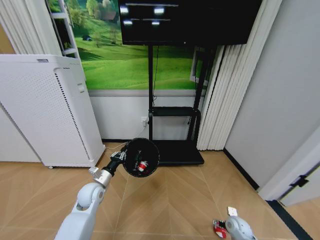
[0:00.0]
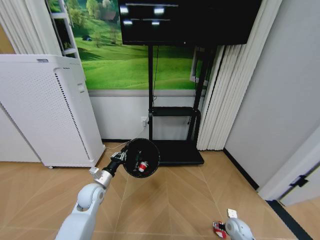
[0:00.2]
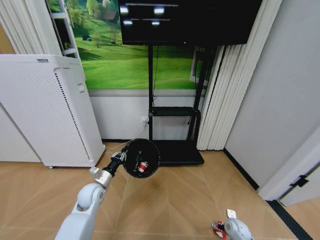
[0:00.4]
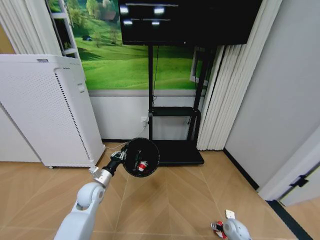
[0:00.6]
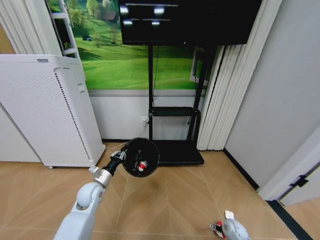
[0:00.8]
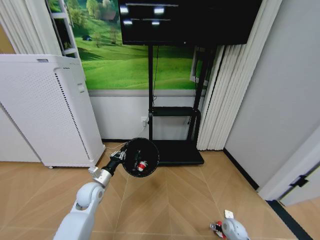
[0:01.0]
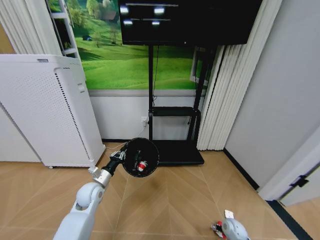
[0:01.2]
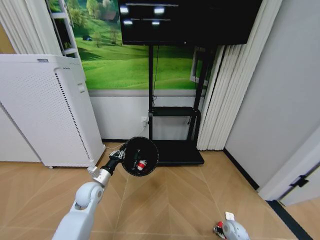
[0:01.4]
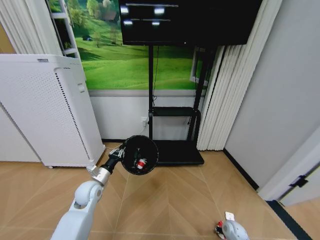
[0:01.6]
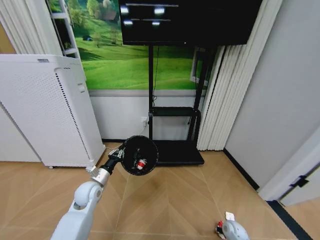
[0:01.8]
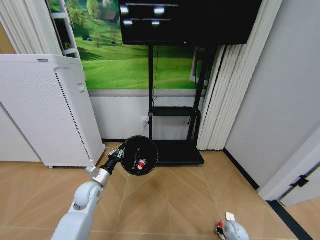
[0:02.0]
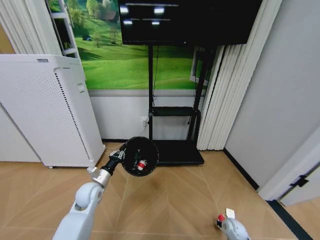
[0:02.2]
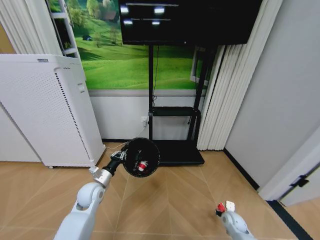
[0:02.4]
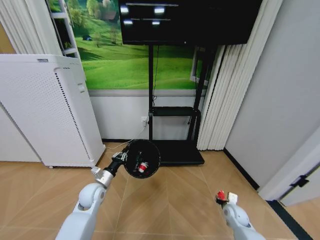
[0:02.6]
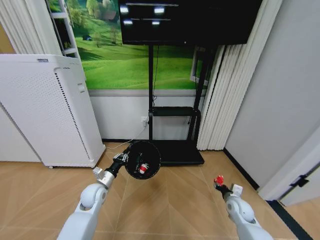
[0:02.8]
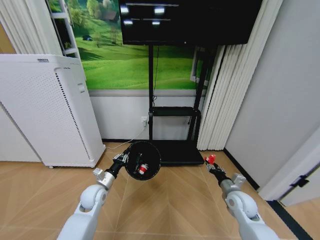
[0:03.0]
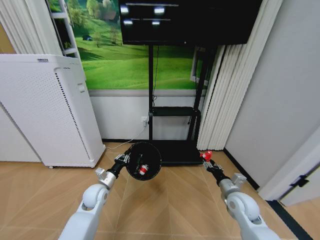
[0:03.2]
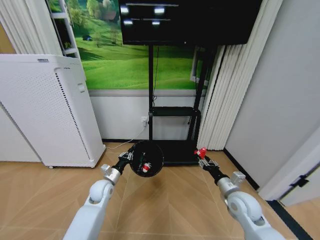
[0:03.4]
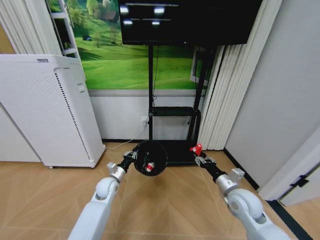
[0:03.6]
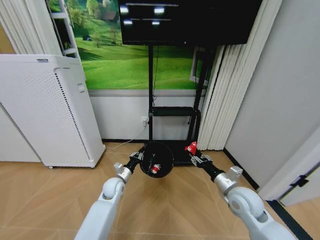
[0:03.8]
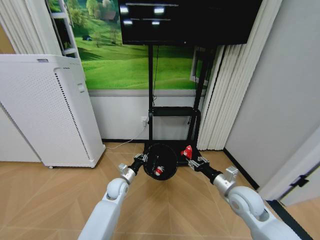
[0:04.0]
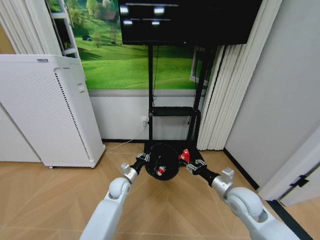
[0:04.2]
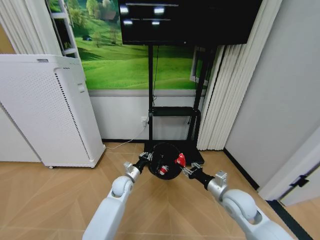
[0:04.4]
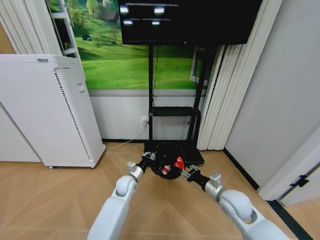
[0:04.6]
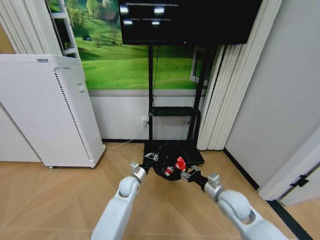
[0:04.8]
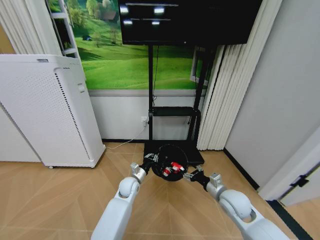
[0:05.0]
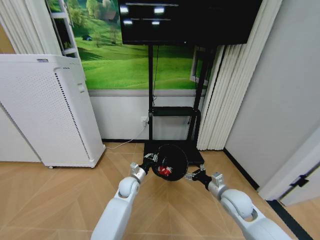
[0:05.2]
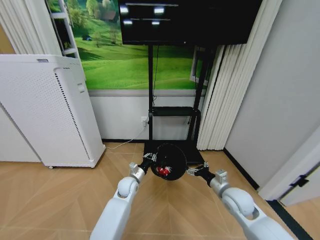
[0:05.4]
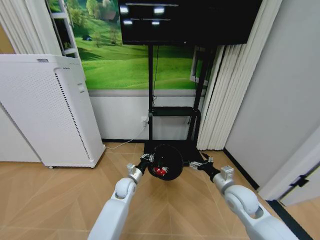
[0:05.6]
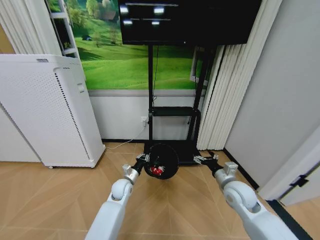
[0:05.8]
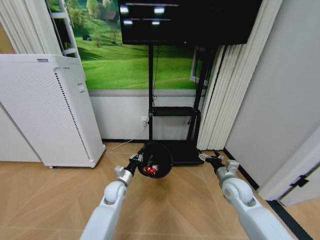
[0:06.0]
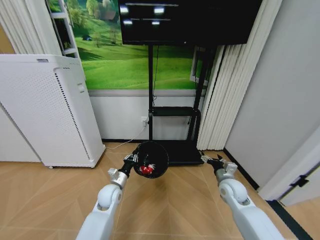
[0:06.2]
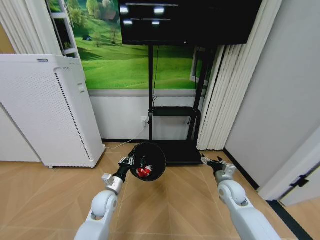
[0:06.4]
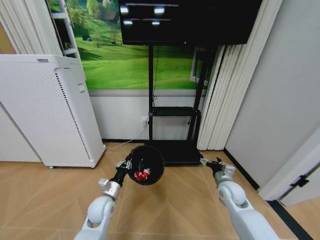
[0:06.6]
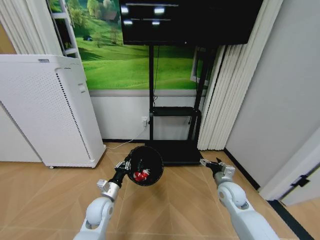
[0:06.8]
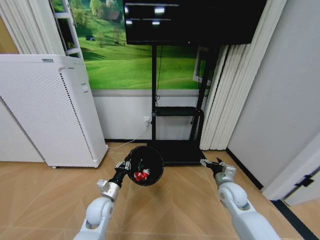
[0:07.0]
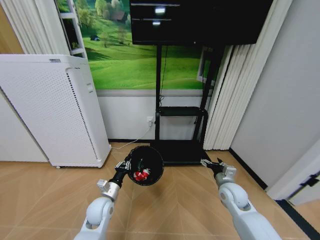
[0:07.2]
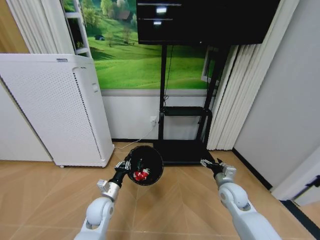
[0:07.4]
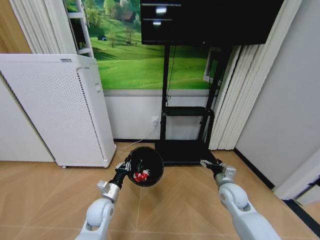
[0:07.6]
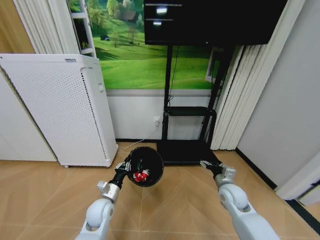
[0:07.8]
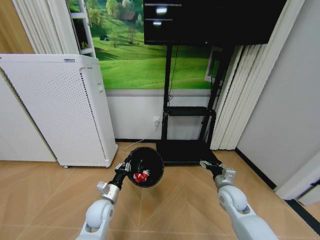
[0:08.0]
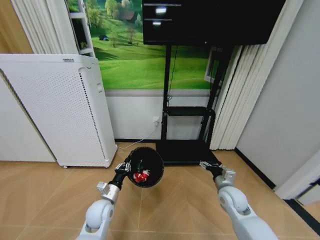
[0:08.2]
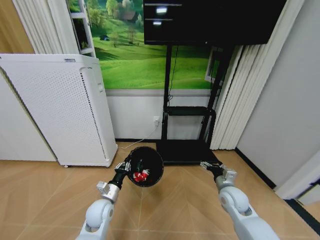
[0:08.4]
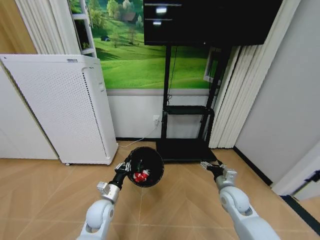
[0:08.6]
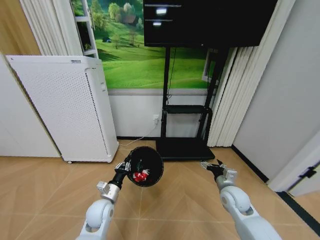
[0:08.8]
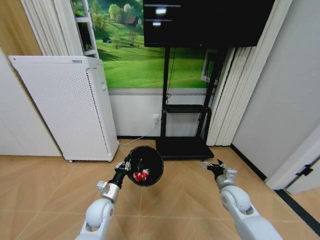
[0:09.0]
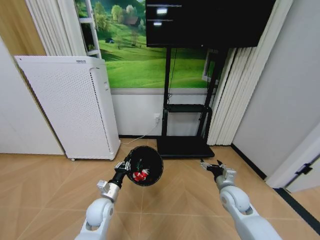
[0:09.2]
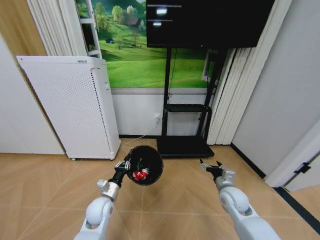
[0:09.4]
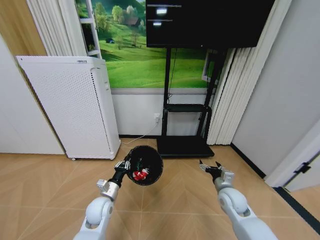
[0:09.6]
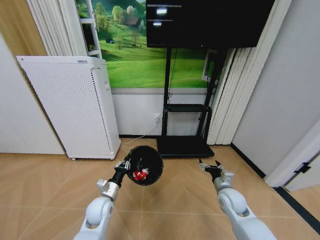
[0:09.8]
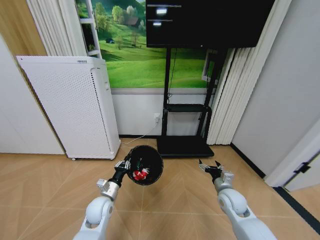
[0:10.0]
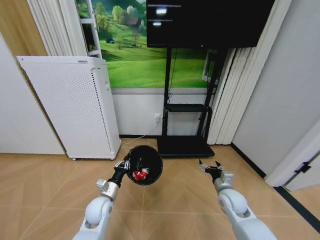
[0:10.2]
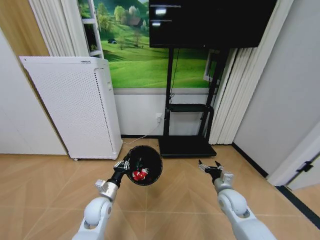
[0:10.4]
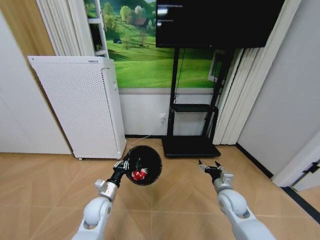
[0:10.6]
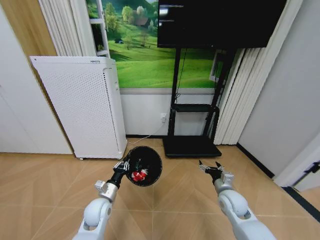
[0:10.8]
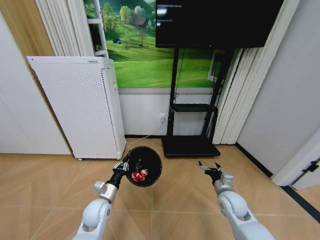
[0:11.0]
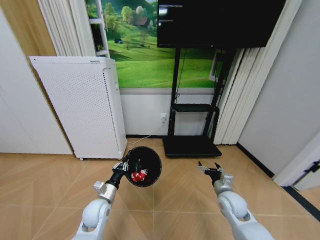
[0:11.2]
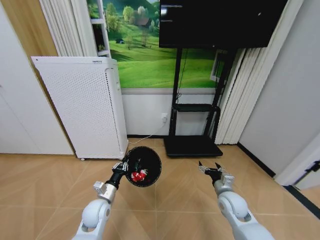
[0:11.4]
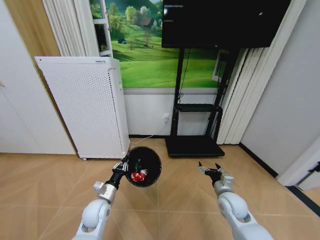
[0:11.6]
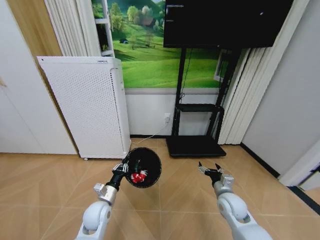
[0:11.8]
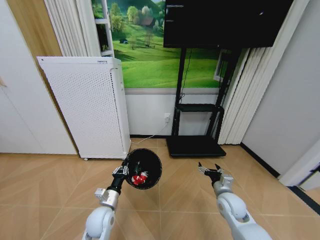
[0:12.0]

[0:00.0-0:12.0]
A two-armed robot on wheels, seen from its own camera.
Task of the whole recording: Pick up the trash bin and place the garbage on the floor into it.
0:00.0 to 0:01.6: The right gripper closes.
0:01.6 to 0:03.0: The right gripper is displaced upward by roughly 20 cm.
0:03.0 to 0:04.4: The right gripper is displaced upward and to the left by about 10 cm. The left gripper travels to the right and forward by roughly 15 cm.
0:04.4 to 0:06.0: The right gripper moves forward, some 5 cm, and opens up.
0:06.0 to 0:07.6: The left gripper travels backward by roughly 10 cm.
0:07.6 to 0:09.0: Neither gripper changes place.
0:09.0 to 0:10.4: There are only small adjustments of the grippers.

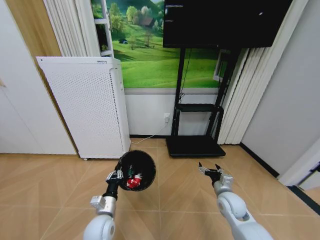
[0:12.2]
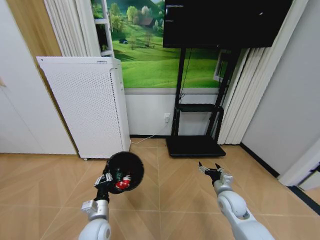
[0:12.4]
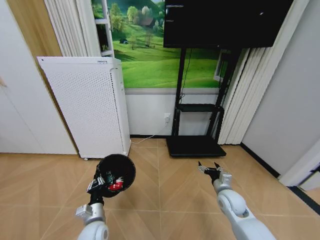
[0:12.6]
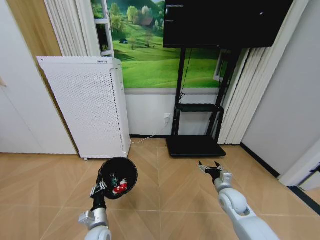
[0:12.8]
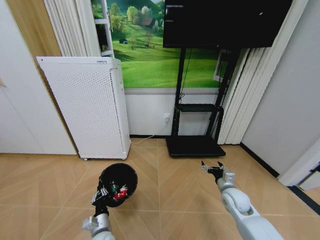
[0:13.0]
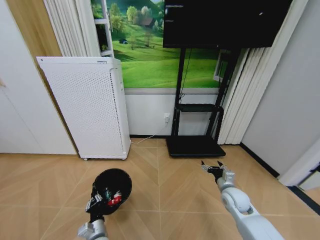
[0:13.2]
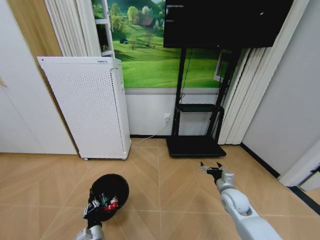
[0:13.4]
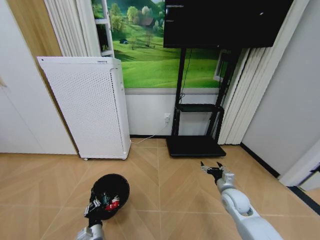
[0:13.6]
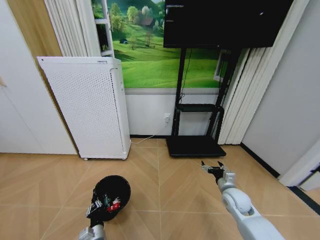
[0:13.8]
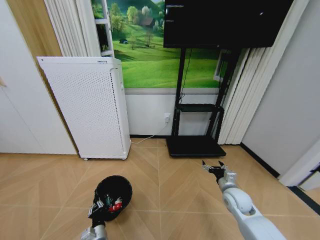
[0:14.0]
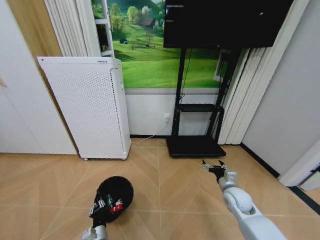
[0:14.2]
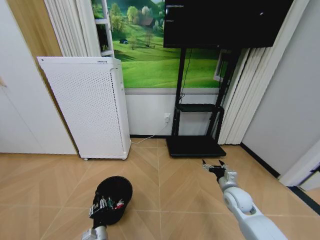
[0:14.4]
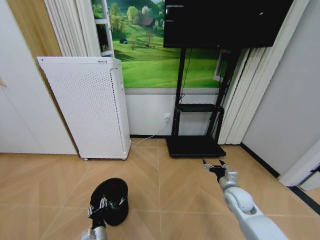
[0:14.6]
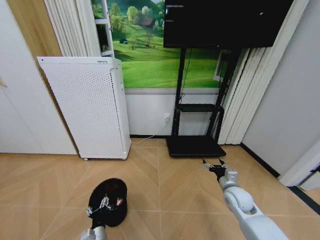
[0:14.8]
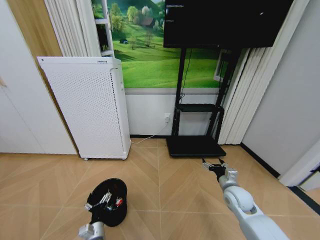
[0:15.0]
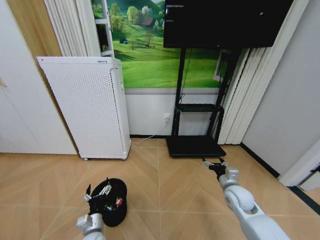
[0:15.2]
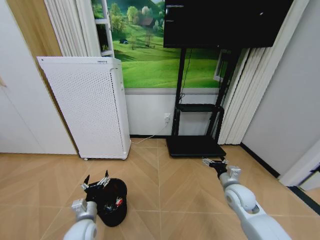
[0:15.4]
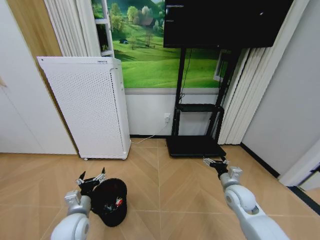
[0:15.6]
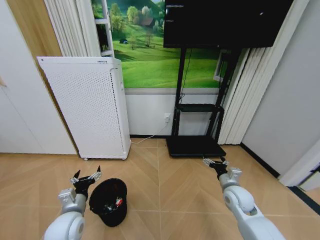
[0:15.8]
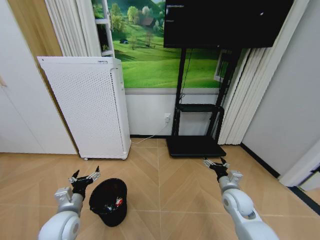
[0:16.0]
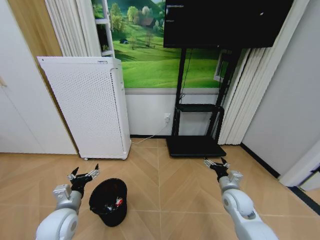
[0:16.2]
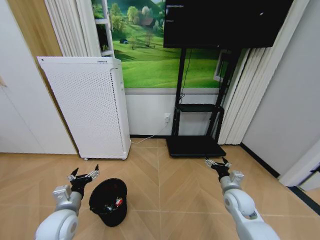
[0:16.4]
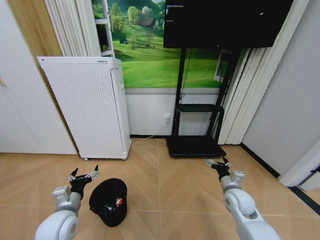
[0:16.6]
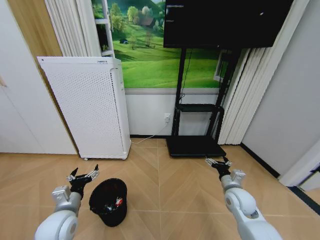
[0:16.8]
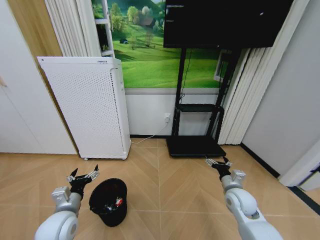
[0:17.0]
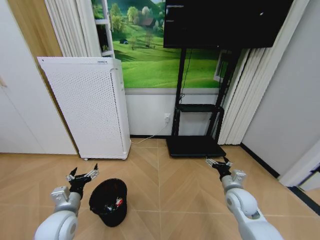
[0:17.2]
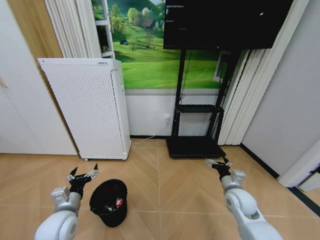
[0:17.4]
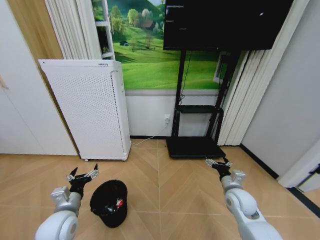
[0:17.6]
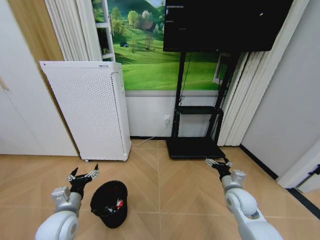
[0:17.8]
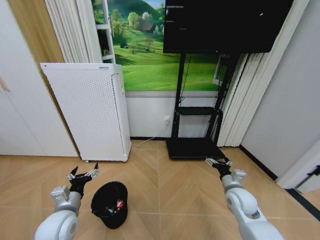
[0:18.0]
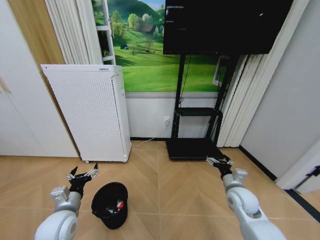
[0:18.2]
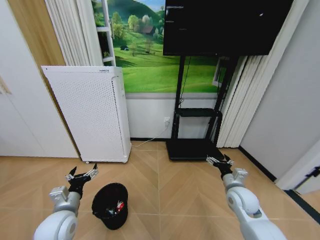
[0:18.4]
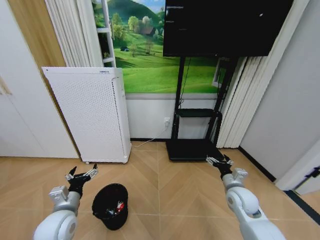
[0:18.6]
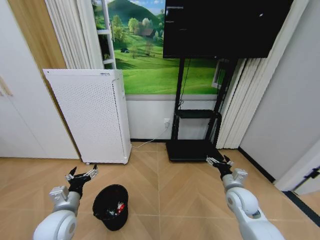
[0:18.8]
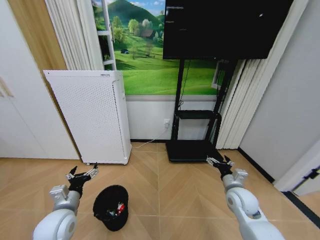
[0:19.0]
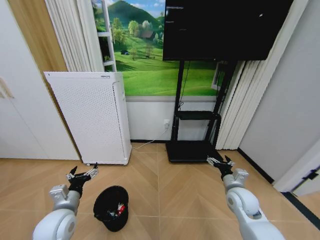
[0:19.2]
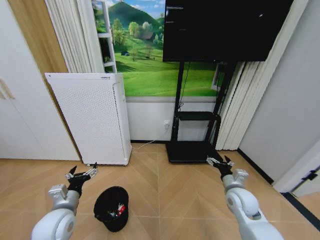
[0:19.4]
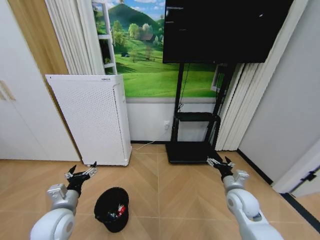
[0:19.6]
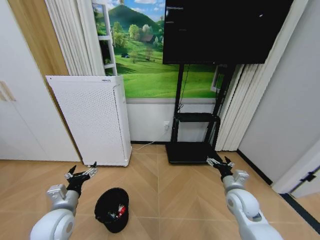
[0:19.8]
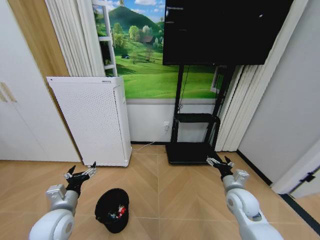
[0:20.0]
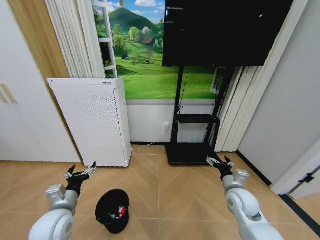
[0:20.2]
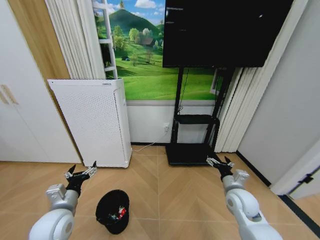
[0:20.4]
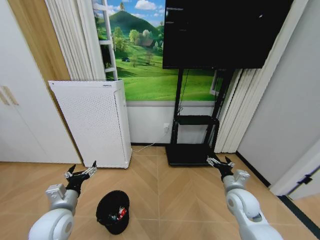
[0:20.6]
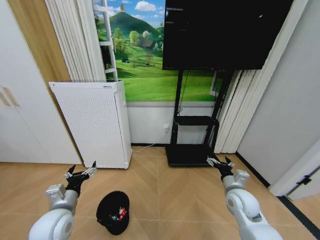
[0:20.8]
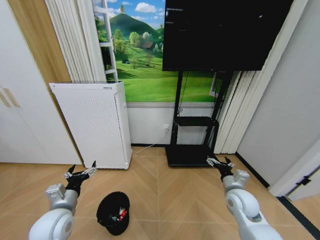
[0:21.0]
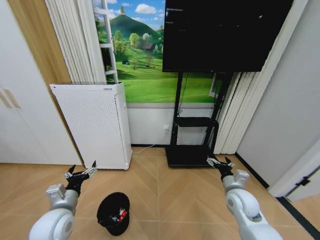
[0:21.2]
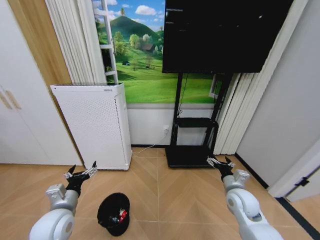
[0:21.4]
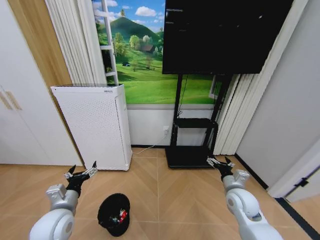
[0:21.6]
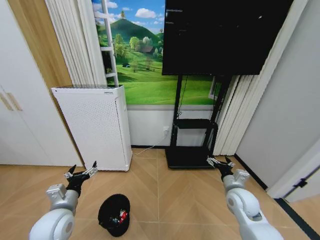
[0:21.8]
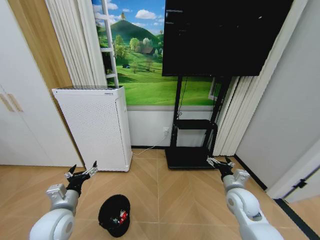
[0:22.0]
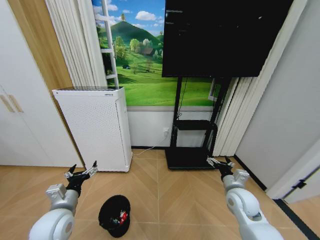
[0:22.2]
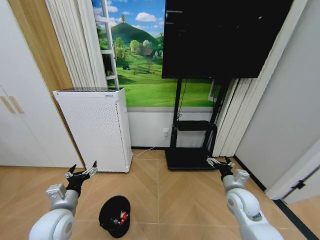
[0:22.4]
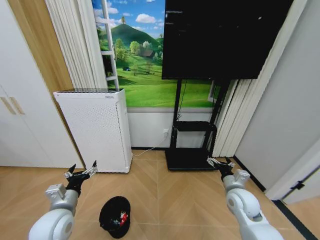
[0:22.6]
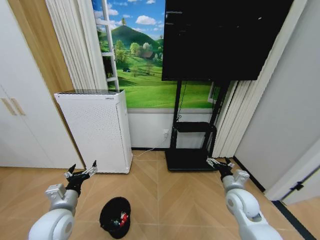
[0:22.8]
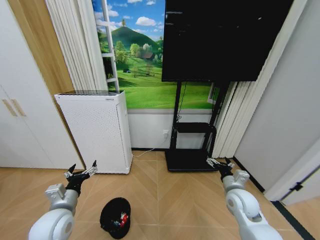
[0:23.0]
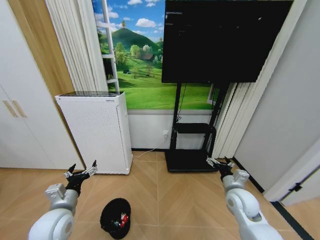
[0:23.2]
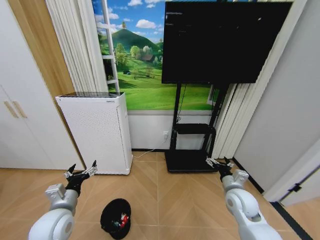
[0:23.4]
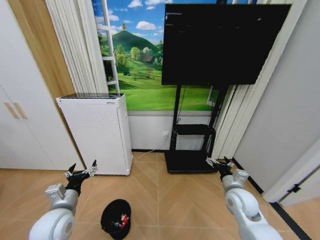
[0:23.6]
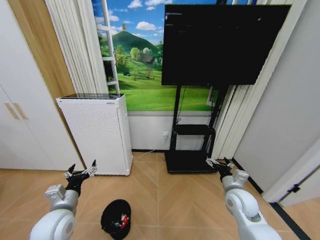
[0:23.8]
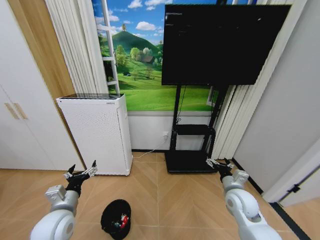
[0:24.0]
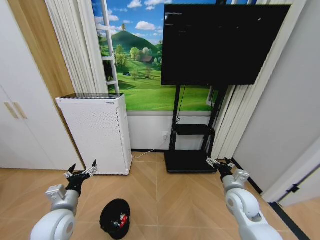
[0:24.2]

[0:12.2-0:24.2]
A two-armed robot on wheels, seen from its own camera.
Task of the whole recording: Pick up the trash bin and place the garbage on the floor into it.
0:12.2 to 0:13.8: The left gripper shifts some 15 cm downward.
0:13.8 to 0:15.2: The left gripper goes approximately 10 cm upward, and opens.
0:15.2 to 0:16.6: The left gripper heads upward and to the left, covering approximately 15 cm.
0:16.6 to 0:18.2: There are only small adjustments of the grippers.
0:18.2 to 0:19.8: The two grippers keep their place.
0:19.8 to 0:24.2: The two grippers keep their place.
